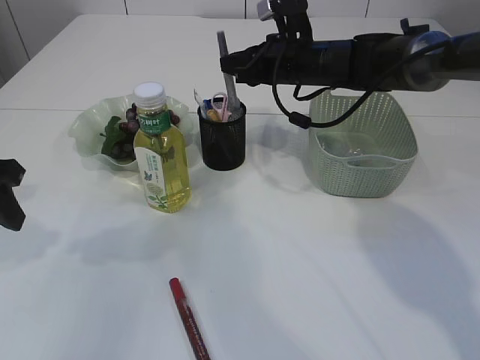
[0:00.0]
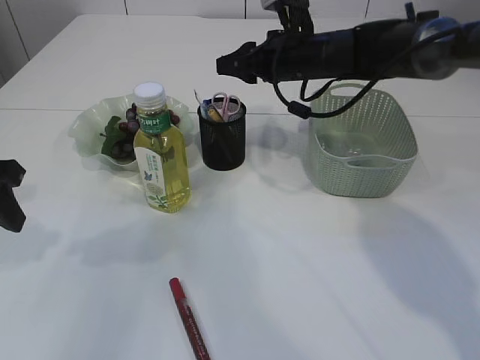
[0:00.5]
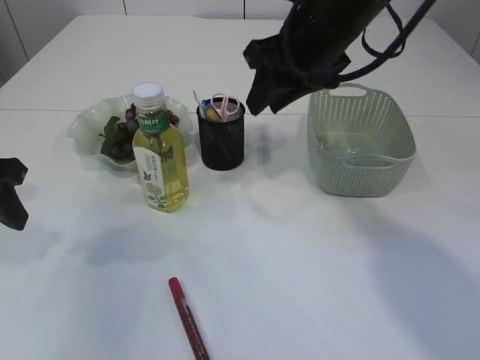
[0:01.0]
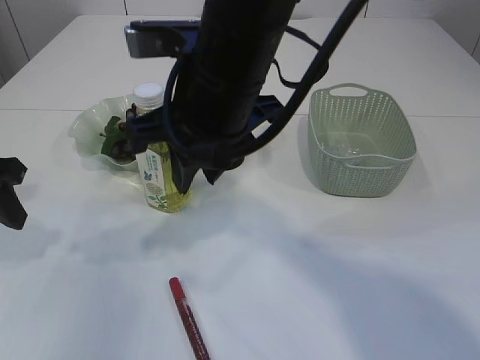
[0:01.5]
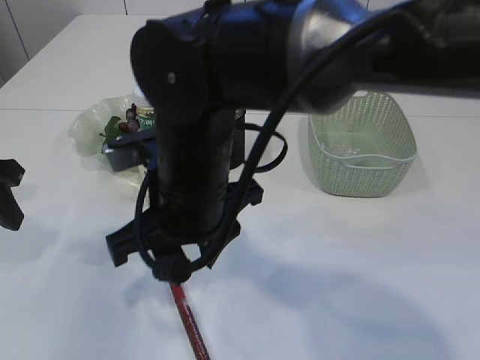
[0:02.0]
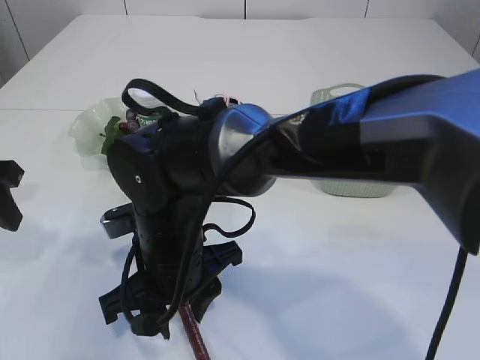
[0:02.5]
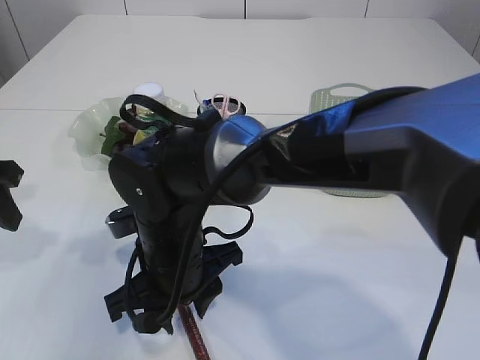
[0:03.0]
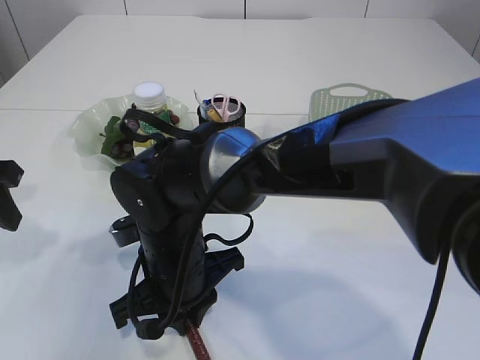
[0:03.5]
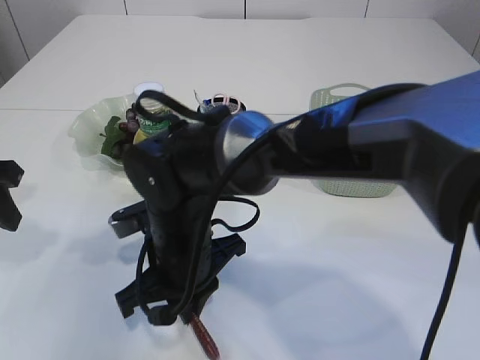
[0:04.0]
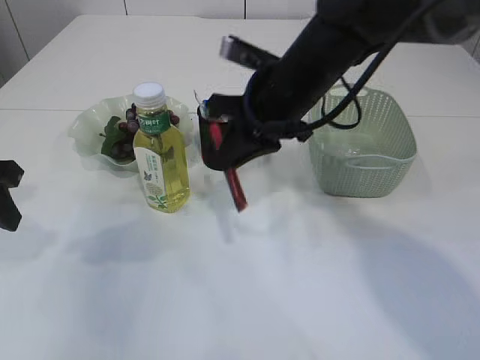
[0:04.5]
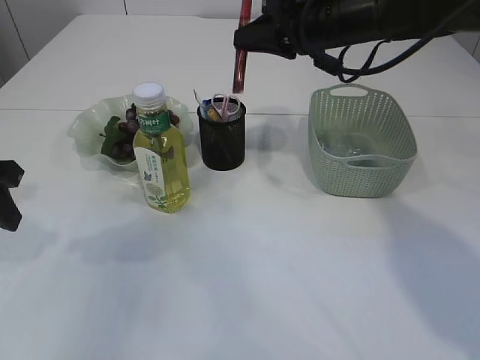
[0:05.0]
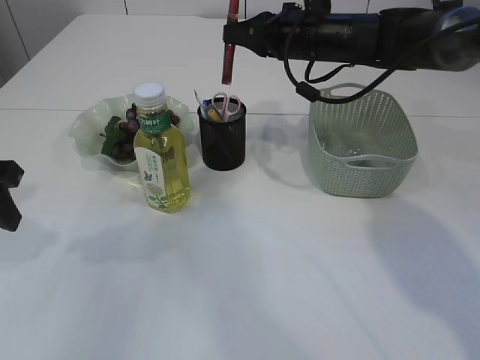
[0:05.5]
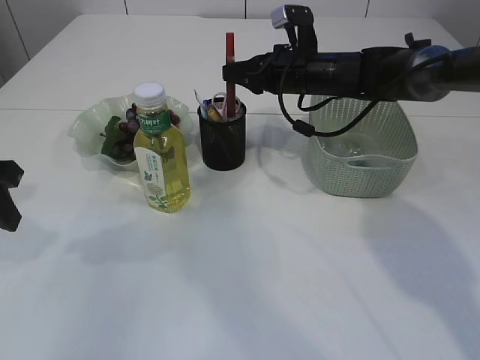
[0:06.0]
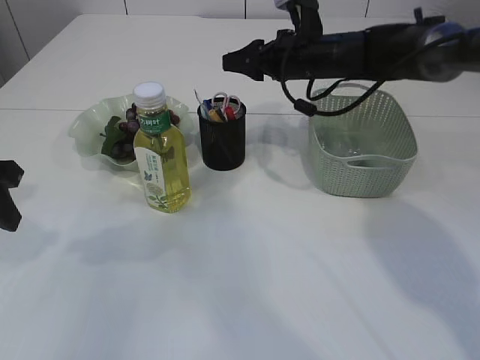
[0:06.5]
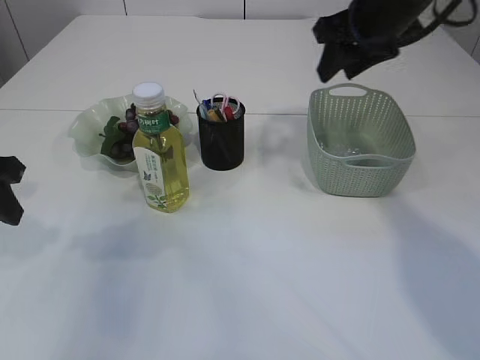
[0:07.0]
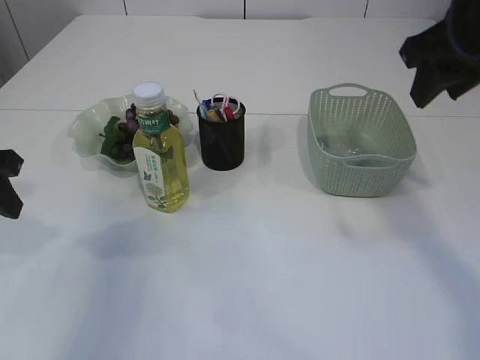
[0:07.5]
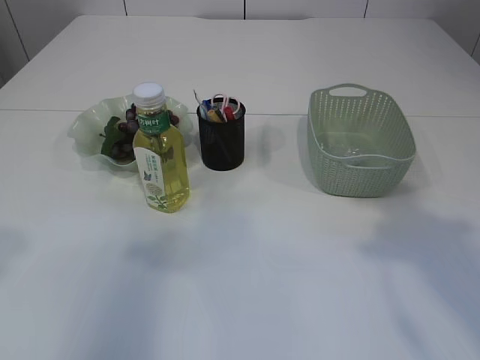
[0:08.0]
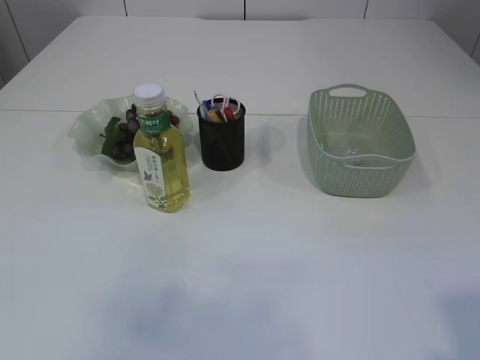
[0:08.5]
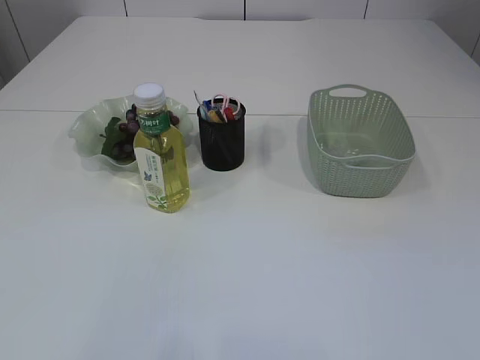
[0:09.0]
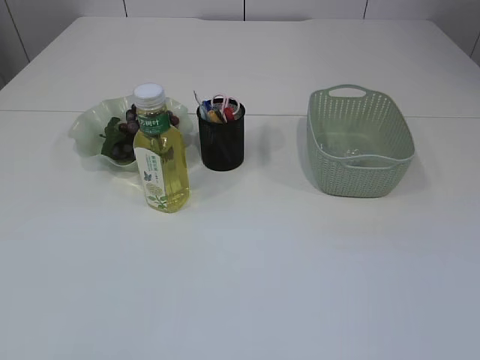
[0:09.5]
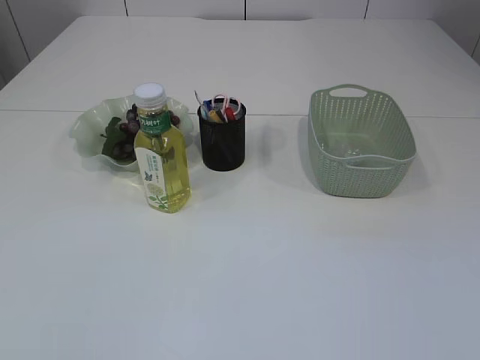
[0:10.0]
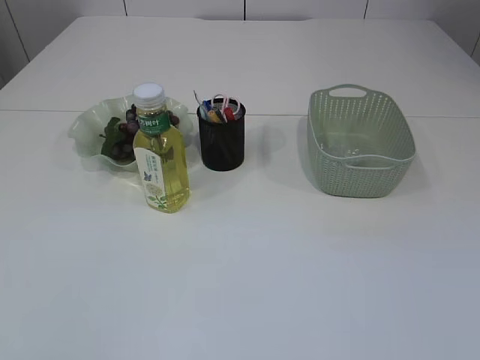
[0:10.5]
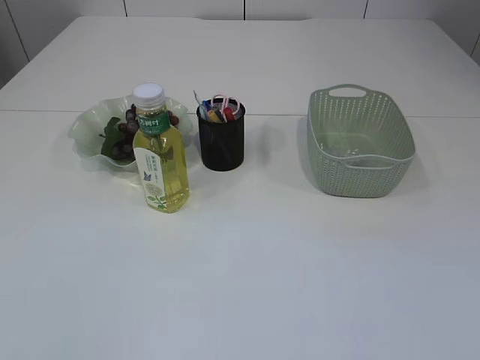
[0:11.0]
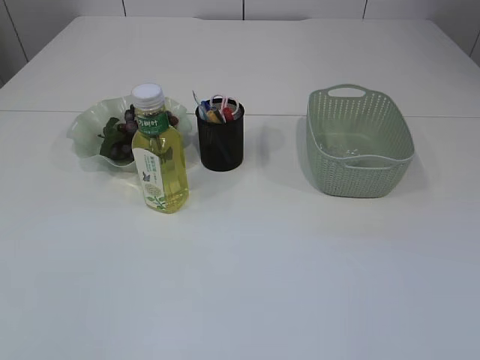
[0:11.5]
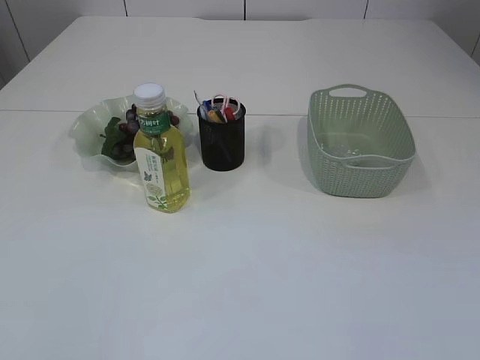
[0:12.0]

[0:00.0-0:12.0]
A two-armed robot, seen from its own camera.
Step, 0:01.0 to 0:04.0: pick up the red glue.
Step, 0:04.5 to 0:06.5: place the red glue into the pen holder.
0:00.0 to 0:02.0: The right gripper goes roughly 30 cm backward and to the left.
0:02.0 to 0:04.0: The right gripper goes roughly 10 cm downward, and closes.
0:04.0 to 0:06.0: The right gripper is displaced forward and to the right by approximately 30 cm.
0:06.0 to 0:08.0: The left gripper heads upward and backward, covering about 10 cm. The right gripper goes approximately 35 cm backward and upward, and opens.
0:08.0 to 0:10.0: The right gripper travels backward and downward by roughly 25 cm, while the left gripper moves backward, some 25 cm.
